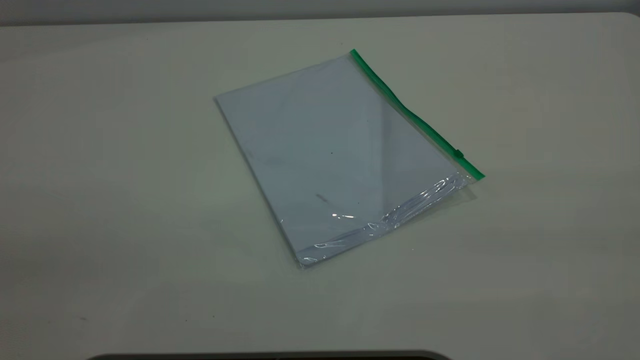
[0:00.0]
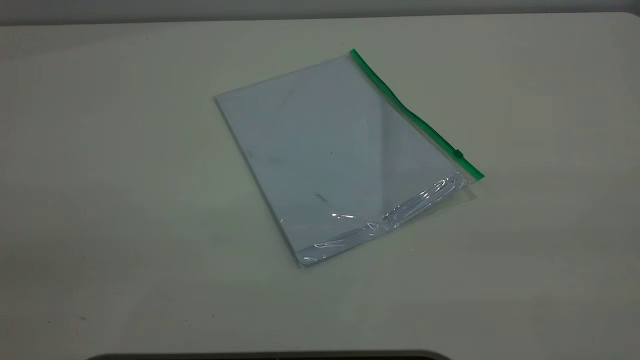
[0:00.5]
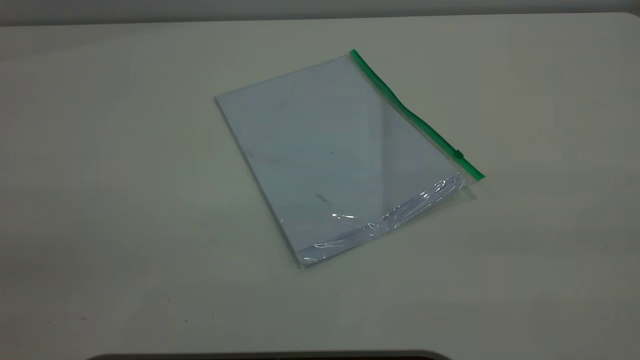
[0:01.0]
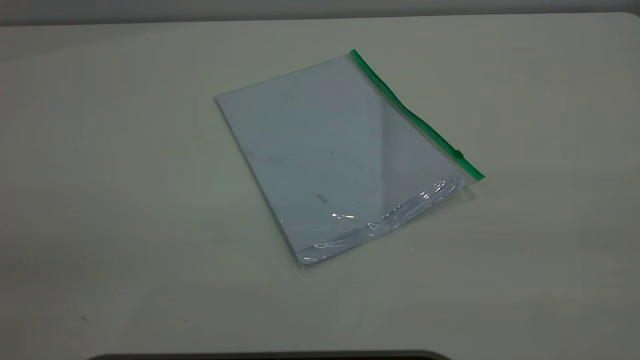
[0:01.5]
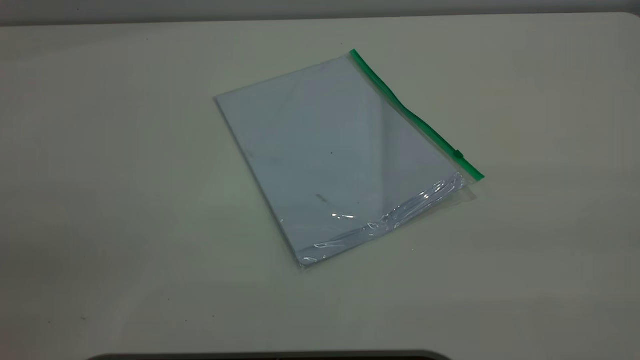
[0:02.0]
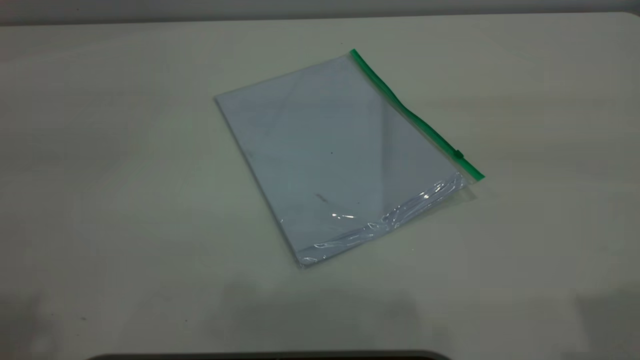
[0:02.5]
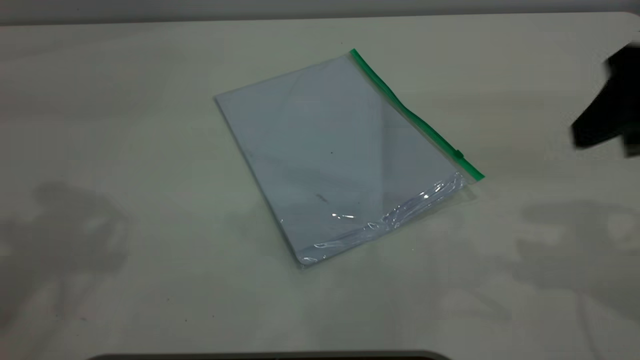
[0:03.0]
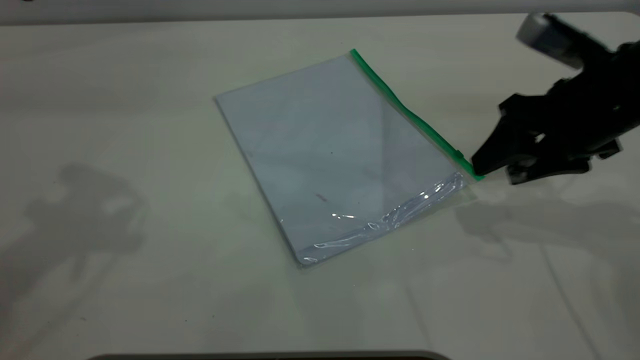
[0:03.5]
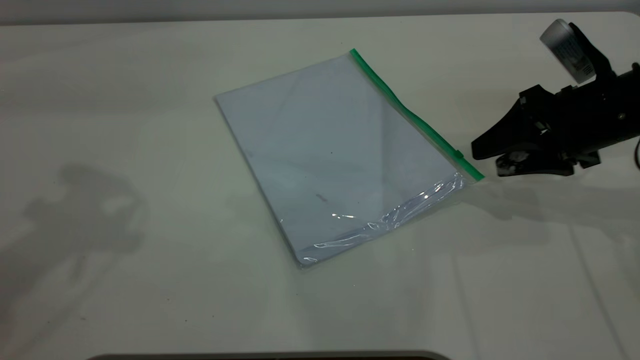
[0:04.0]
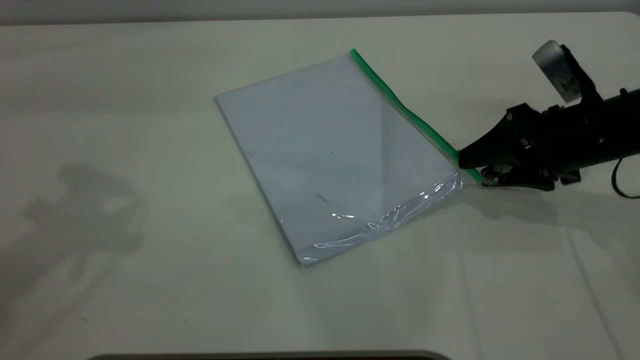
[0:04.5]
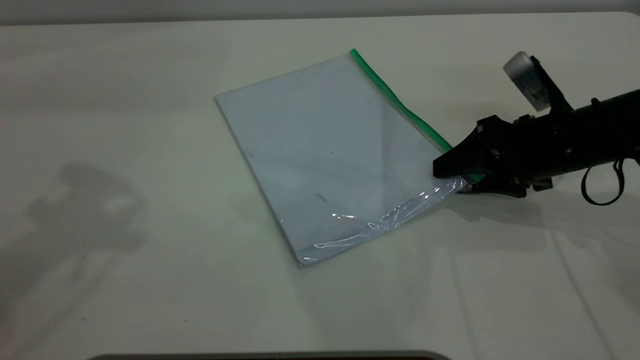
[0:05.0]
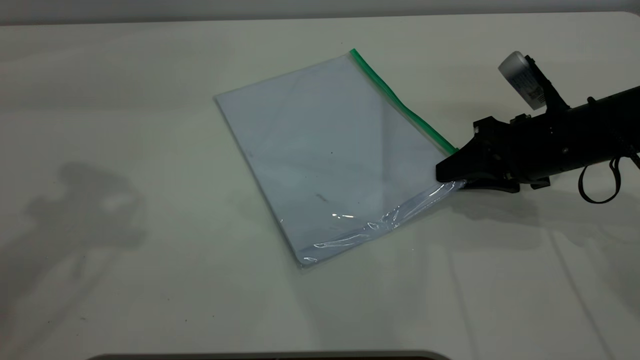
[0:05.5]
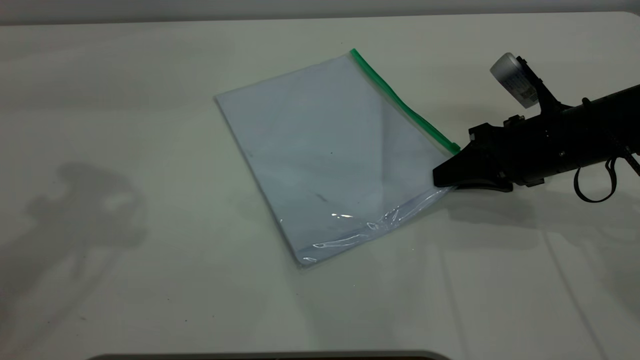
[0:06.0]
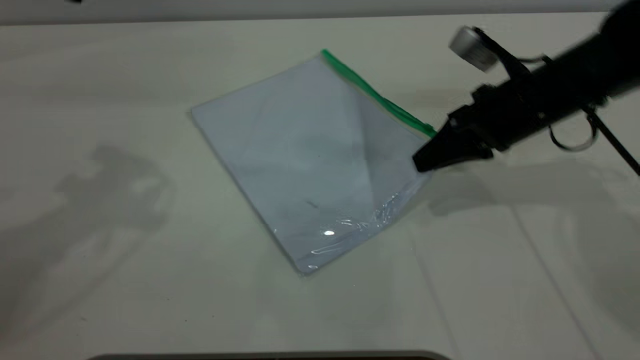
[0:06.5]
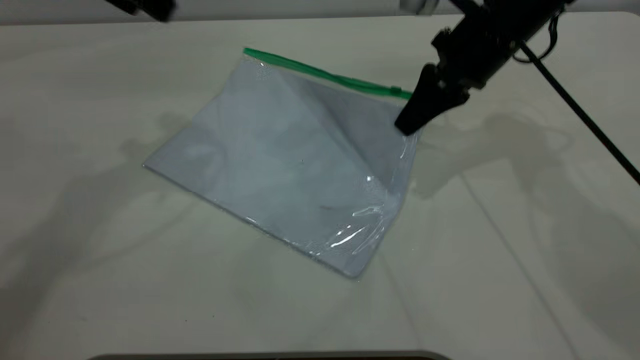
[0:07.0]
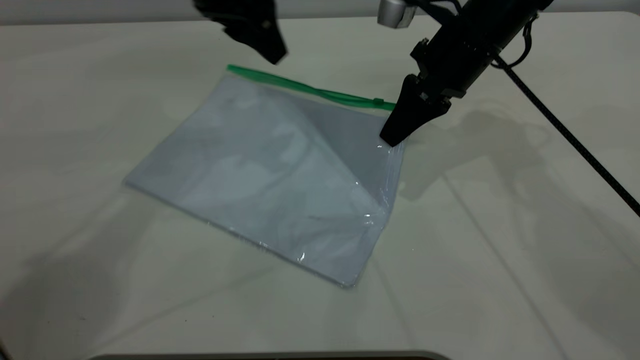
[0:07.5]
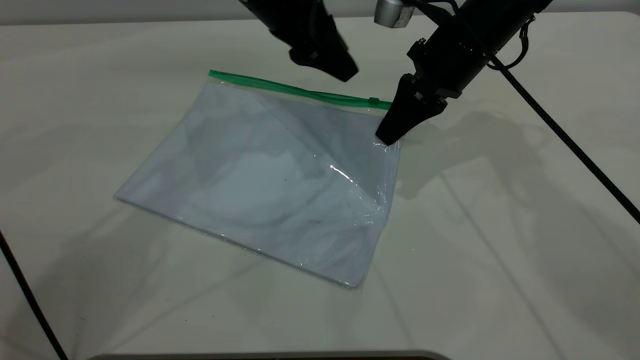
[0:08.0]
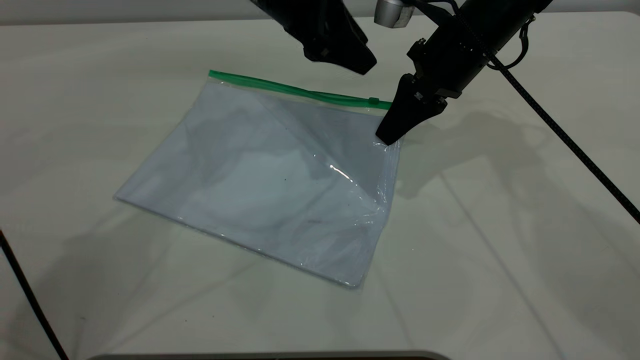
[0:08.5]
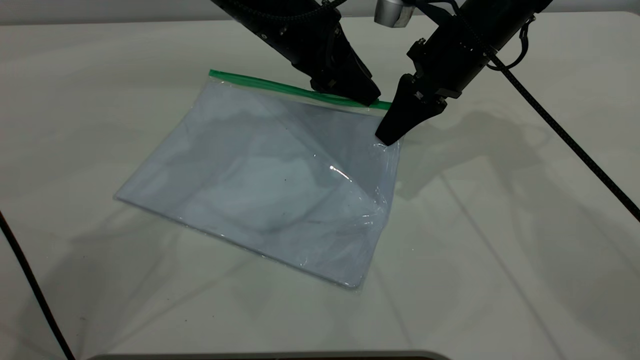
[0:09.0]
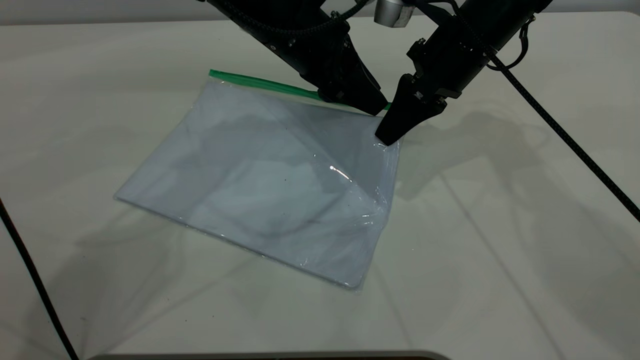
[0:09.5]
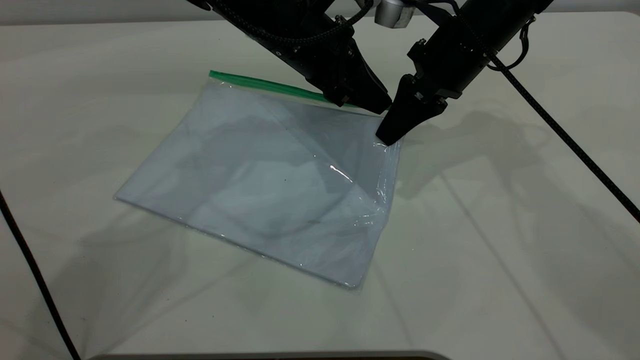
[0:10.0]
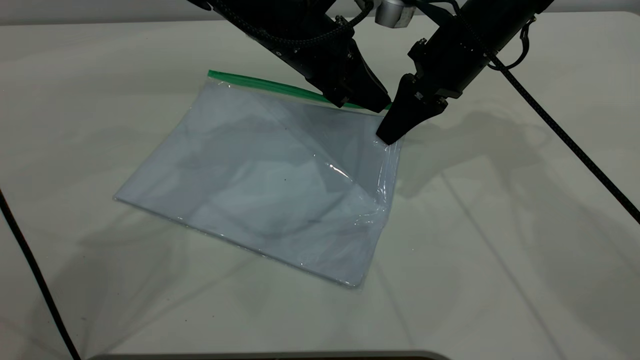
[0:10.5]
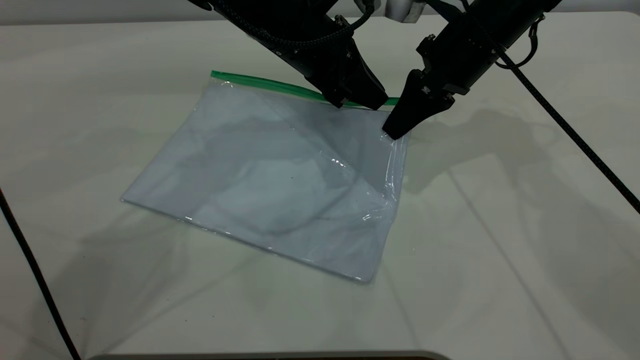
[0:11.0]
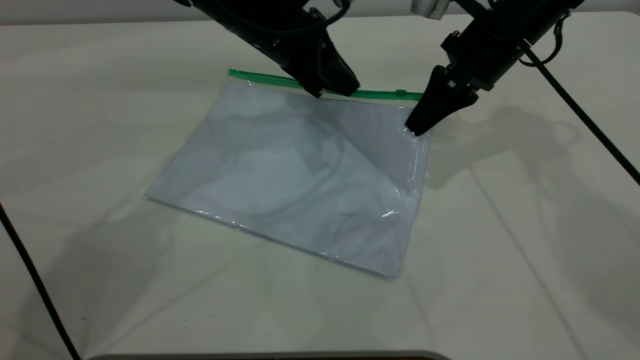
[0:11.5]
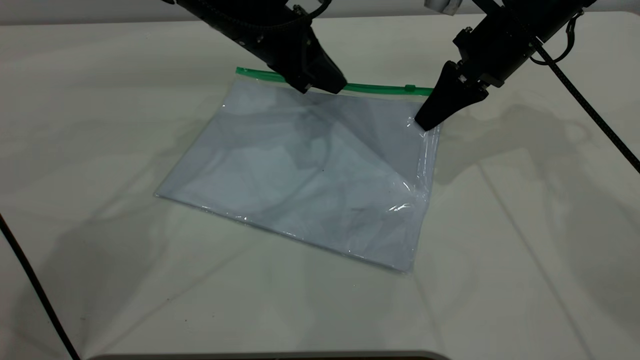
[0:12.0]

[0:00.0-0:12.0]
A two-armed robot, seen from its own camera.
Step, 0:00.0 to 0:07.0: Pick up the transparent plastic bag with the right gripper.
0:00.0 to 0:02.0: Both grippers stay about where they are.
0:02.0 to 0:04.0: The right gripper shifts approximately 40 cm forward and downward.
0:04.0 to 0:06.0: The right gripper changes place by some 5 cm, and closes.
0:06.0 to 0:08.0: The right gripper shifts roughly 15 cm forward, to the left and upward; the left gripper goes approximately 30 cm to the right, downward and forward.
0:08.0 to 0:10.0: The left gripper travels downward by roughly 5 cm, and closes up.
0:10.0 to 0:12.0: The right gripper is displaced to the right by about 5 cm.

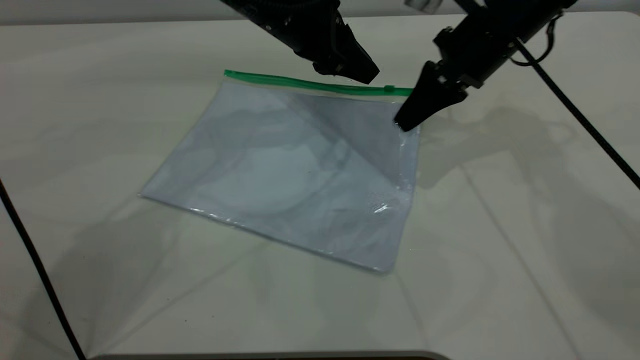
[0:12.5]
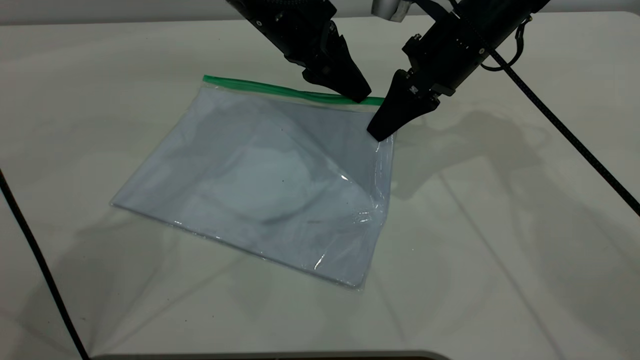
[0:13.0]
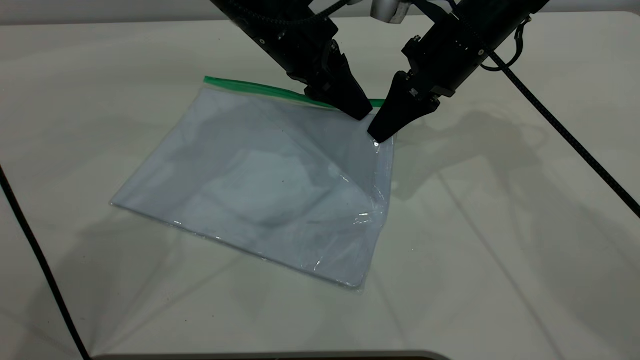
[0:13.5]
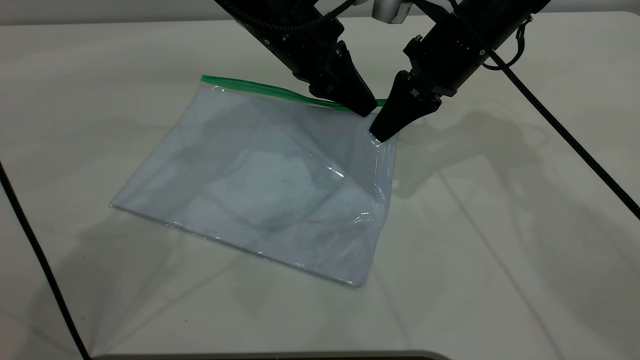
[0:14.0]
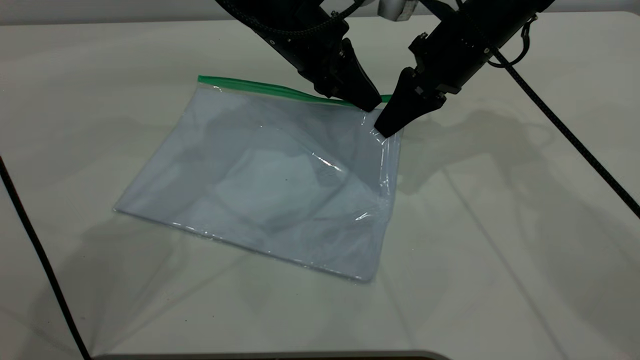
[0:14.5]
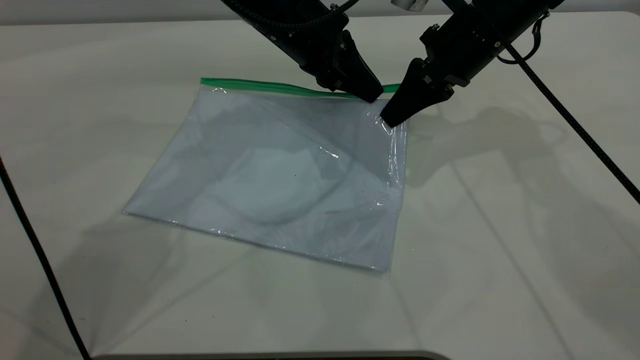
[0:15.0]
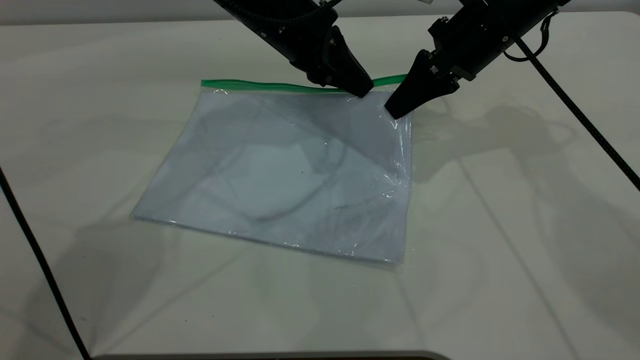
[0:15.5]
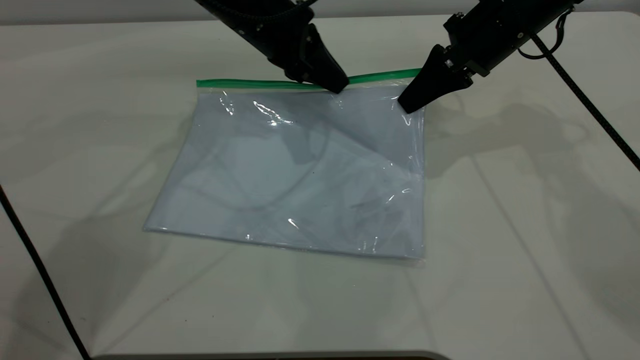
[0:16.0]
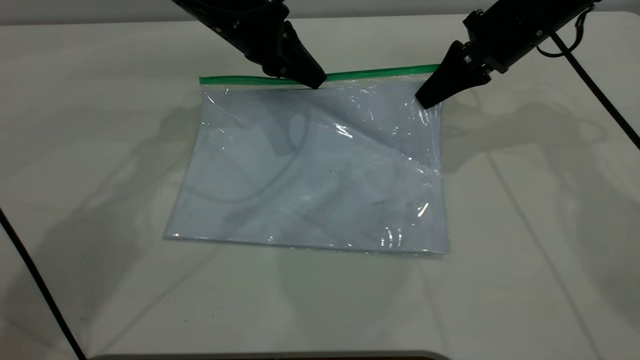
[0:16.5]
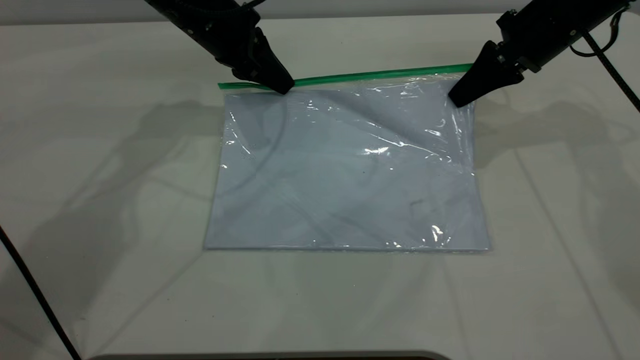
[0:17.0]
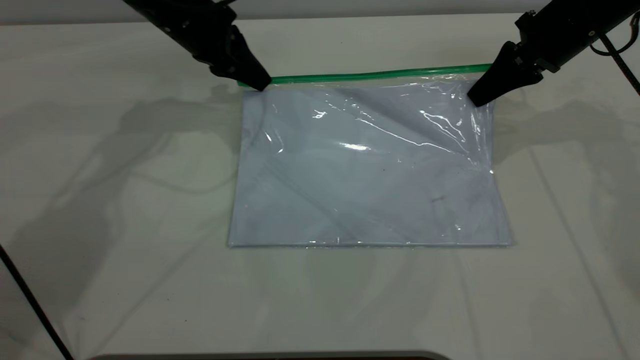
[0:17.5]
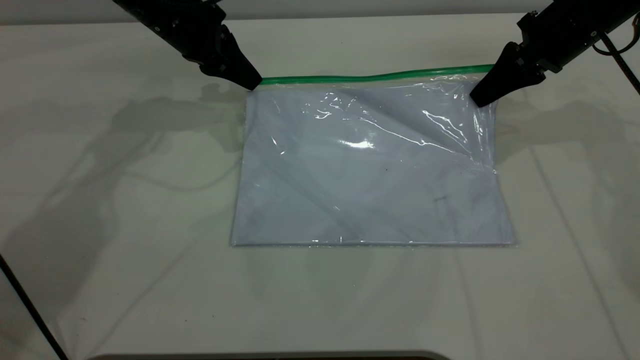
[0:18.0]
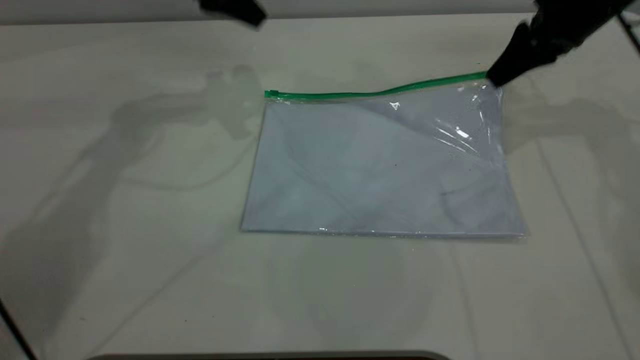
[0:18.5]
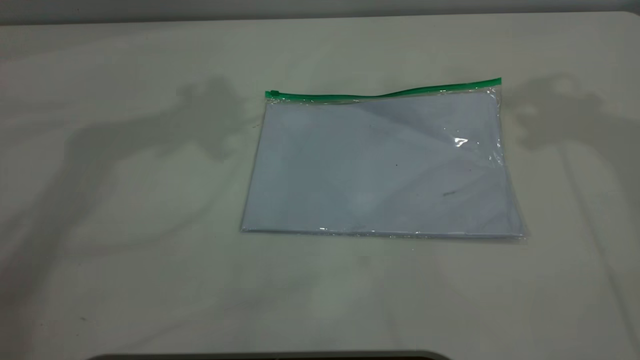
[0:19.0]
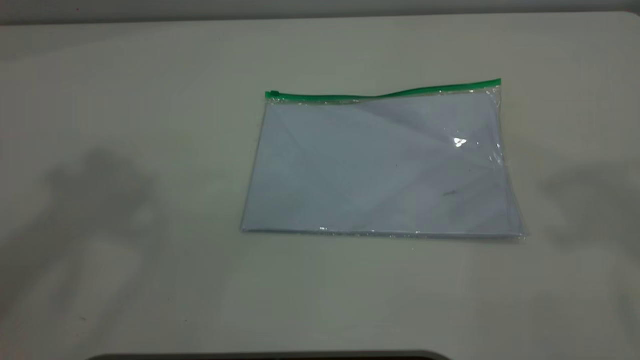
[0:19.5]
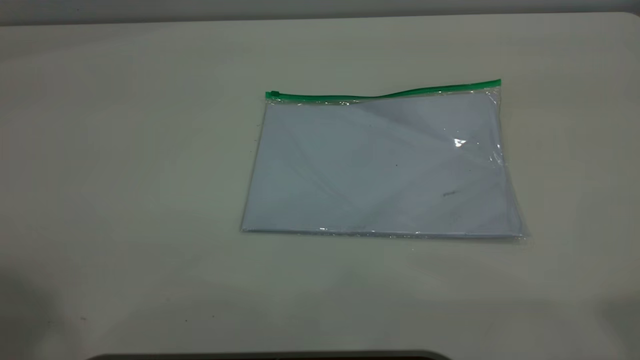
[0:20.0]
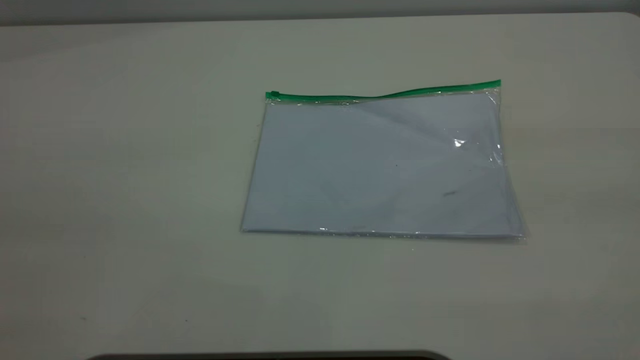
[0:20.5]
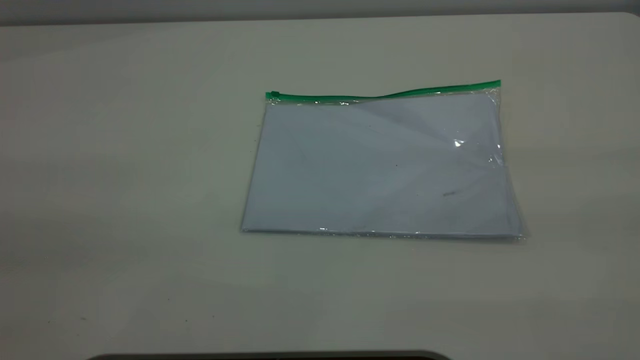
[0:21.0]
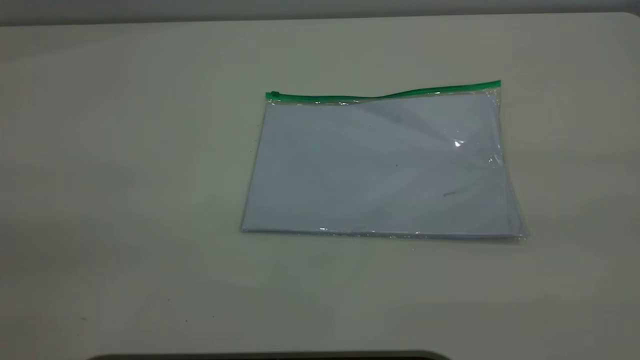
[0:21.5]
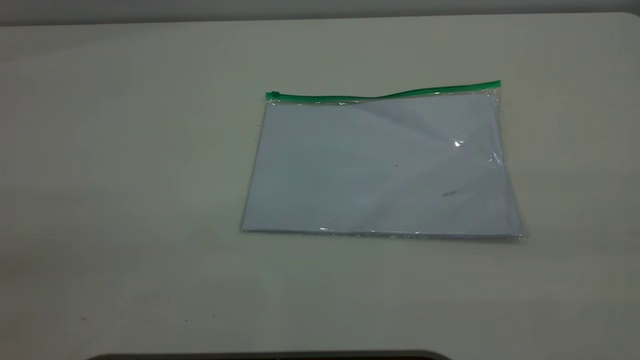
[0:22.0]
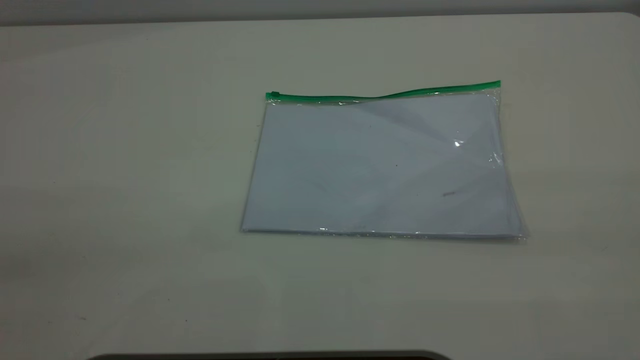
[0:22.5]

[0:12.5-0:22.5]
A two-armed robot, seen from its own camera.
Step, 0:12.5 to 0:18.0: Pulling up the zipper on the transparent plastic bag with the left gripper to close it.
Step, 0:18.5 to 0:19.0: Place the transparent plastic bag.
0:12.5 to 0:14.5: The left gripper closes up.
0:14.5 to 0:16.5: The left gripper heads to the left, covering about 5 cm; the right gripper shifts roughly 5 cm to the right.
0:16.5 to 0:18.5: The right gripper moves to the right, some 5 cm, and opens. The left gripper travels upward and to the left by roughly 10 cm, and opens.
0:18.5 to 0:20.5: The left gripper goes some 40 cm backward. Meanwhile the right gripper shifts some 50 cm backward and upward.
